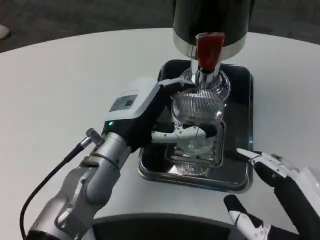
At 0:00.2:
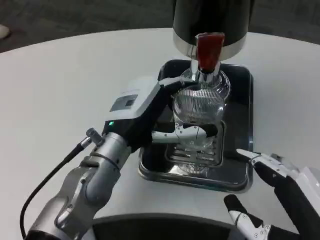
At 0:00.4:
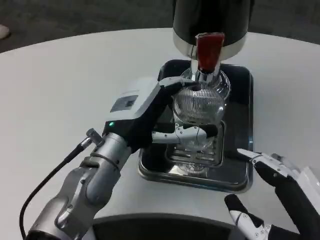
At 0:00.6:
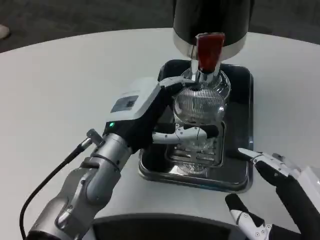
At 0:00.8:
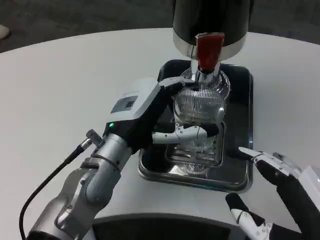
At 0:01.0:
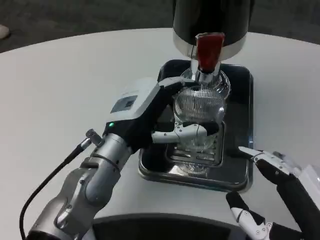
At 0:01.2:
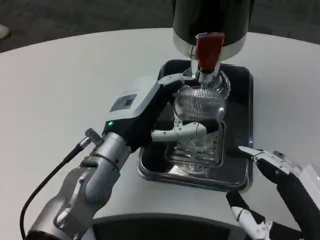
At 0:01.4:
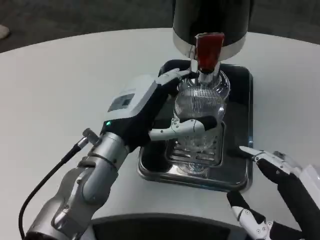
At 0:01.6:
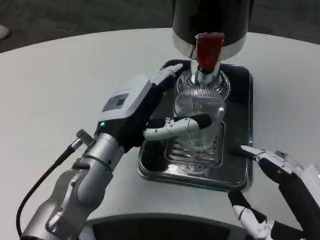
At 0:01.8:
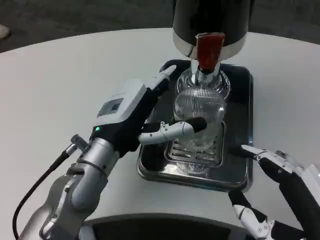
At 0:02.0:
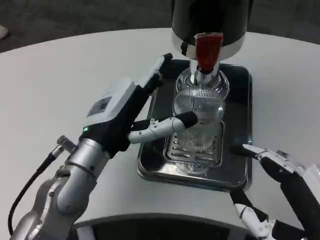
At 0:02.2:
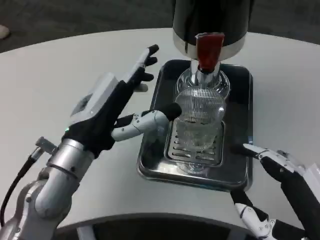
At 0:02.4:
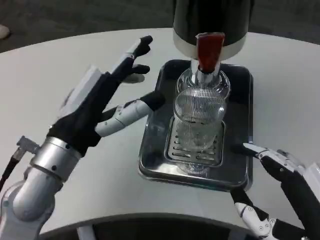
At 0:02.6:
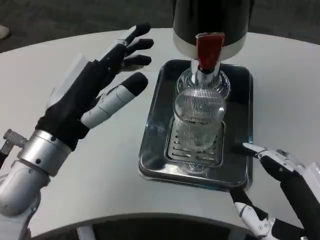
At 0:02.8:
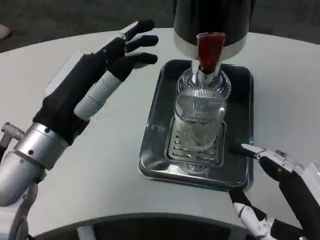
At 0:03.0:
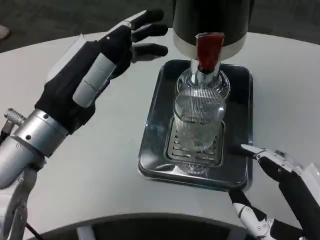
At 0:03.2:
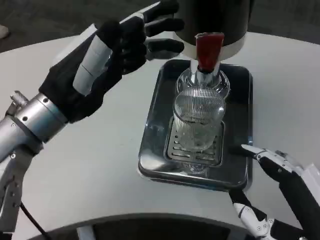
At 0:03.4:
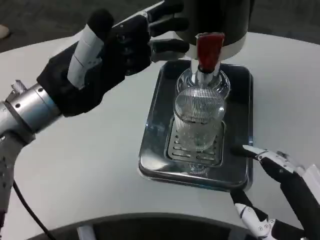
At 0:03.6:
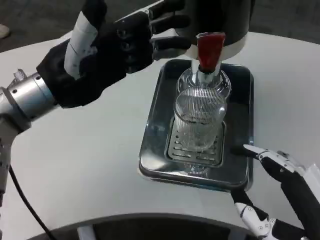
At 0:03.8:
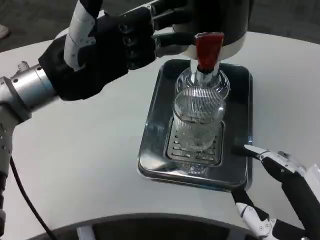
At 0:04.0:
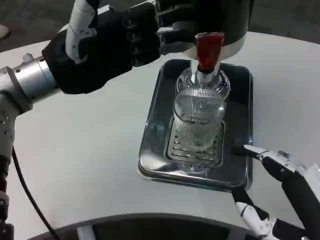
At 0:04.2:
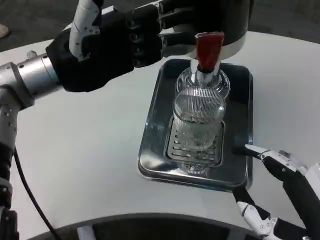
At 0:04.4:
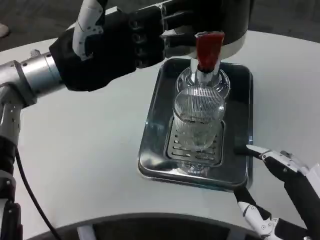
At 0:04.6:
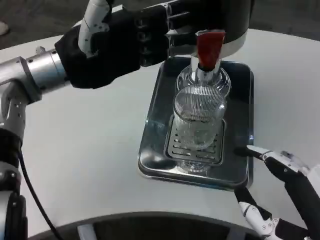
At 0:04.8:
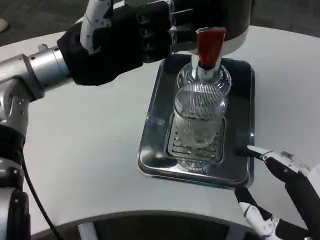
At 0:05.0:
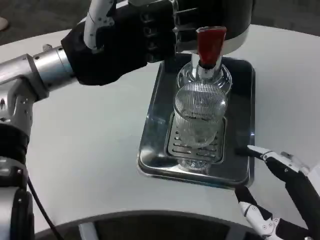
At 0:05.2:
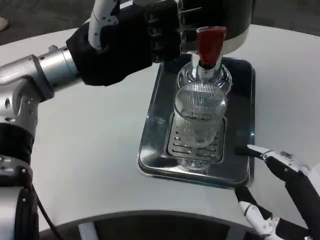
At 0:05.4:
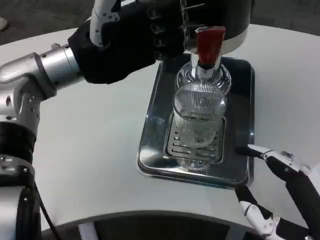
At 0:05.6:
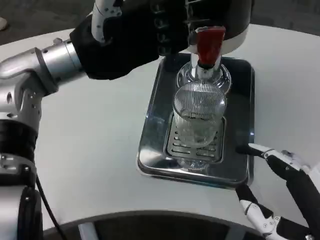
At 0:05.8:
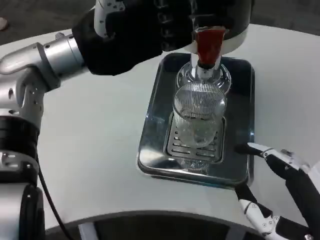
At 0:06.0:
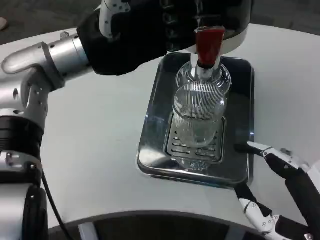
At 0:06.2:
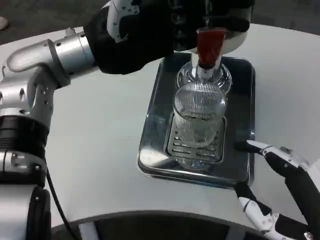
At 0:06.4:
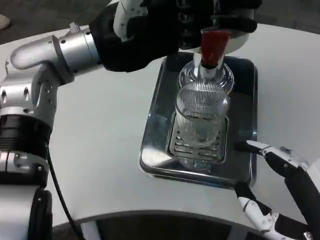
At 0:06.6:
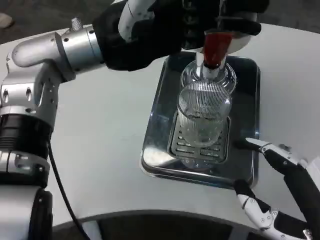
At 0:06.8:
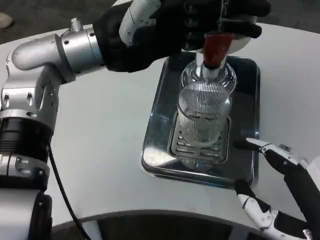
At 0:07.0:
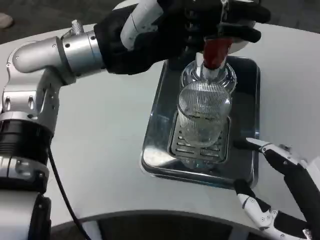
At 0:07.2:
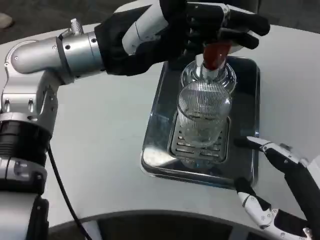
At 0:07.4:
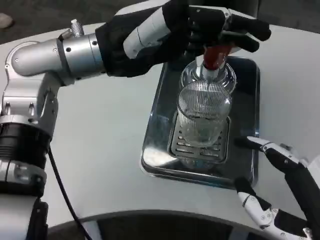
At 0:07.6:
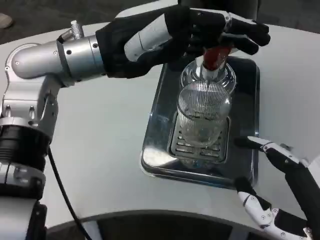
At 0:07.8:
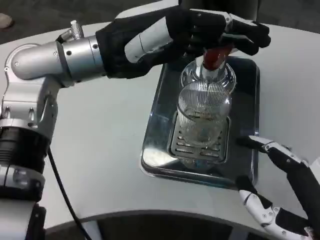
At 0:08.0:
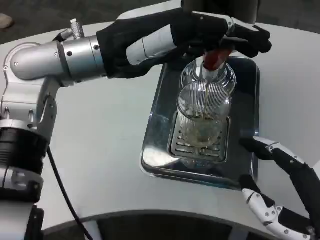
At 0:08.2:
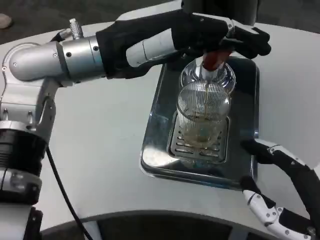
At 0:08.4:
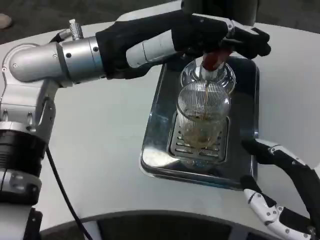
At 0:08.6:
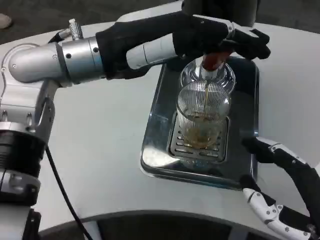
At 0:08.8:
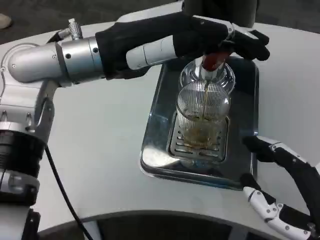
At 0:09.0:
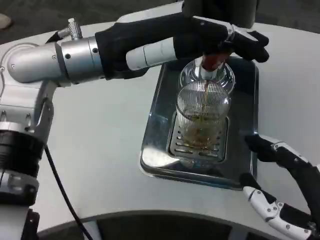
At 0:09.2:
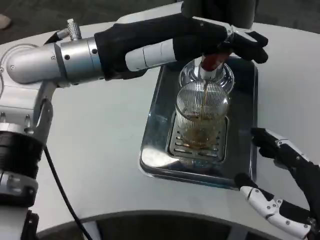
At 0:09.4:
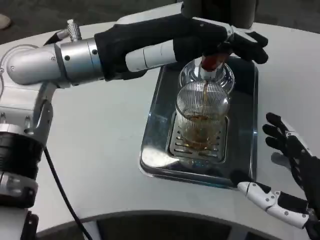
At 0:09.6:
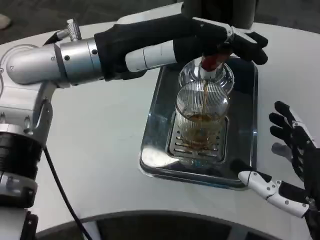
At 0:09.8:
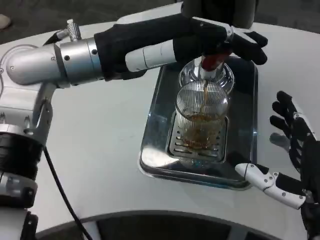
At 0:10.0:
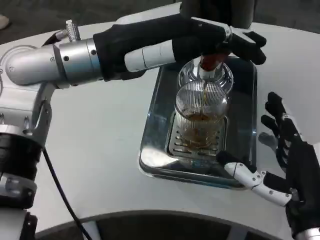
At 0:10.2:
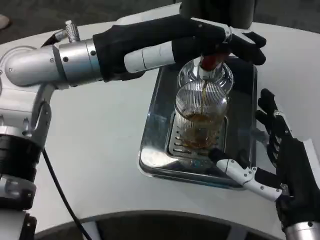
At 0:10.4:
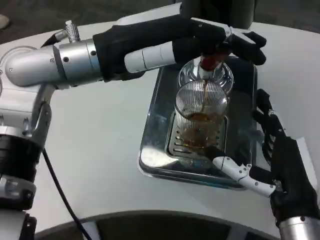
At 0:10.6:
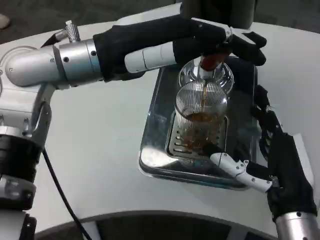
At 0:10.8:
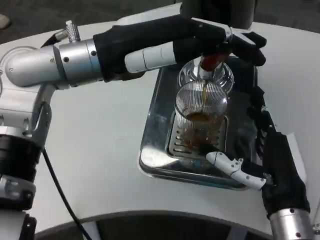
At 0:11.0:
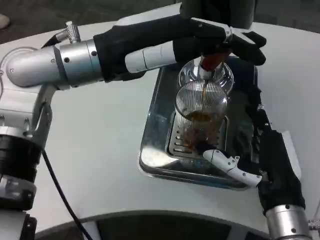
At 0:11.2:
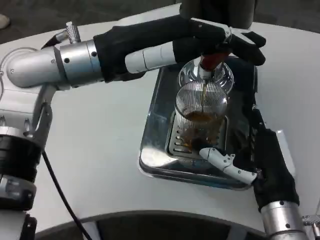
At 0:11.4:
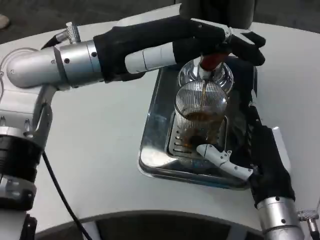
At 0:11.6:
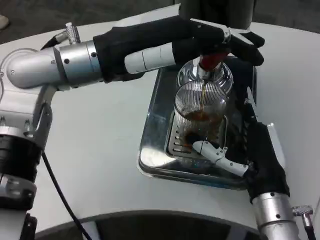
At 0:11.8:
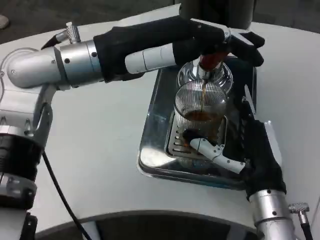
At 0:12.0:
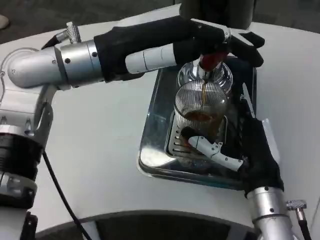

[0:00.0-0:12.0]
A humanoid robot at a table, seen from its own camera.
Task of the whole recording: Grasp the cup under the faucet to collect the drink, then remove the cup.
0:00.0 to 0:01.6: Both hands stay about where they are.
0:01.6 to 0:03.0: The left hand moves to the left and upward, roughly 10 cm.
0:03.0 to 0:04.4: The left hand is displaced forward and upward by roughly 10 cm.
0:09.0 to 0:10.4: The right hand heads forward, covering roughly 10 cm.
0:10.4 to 0:12.0: The right hand travels forward by some 5 cm.

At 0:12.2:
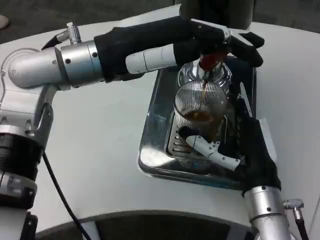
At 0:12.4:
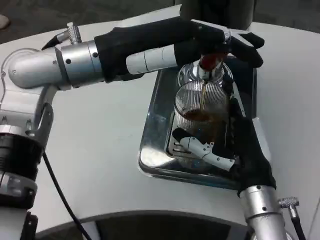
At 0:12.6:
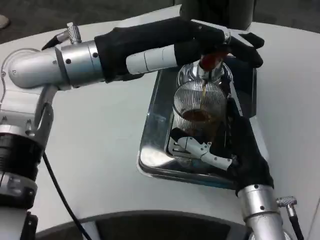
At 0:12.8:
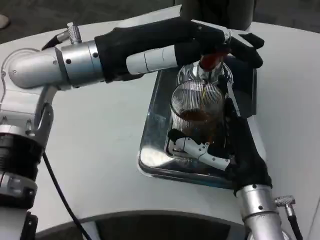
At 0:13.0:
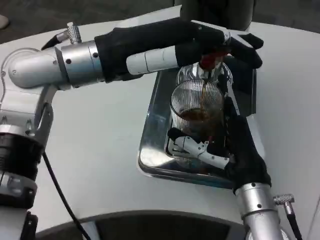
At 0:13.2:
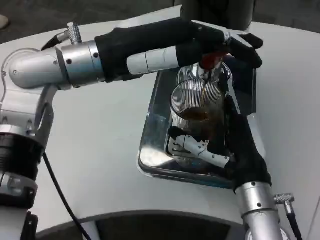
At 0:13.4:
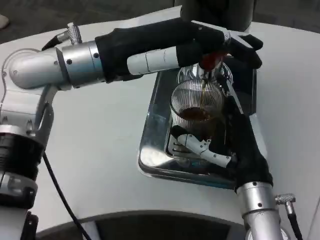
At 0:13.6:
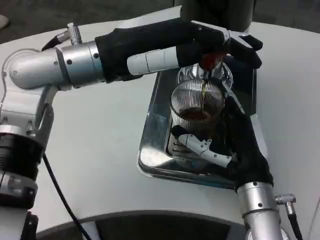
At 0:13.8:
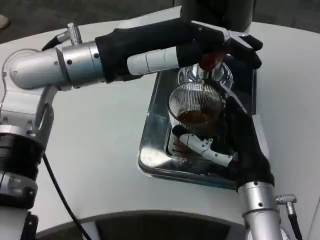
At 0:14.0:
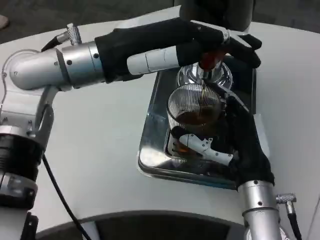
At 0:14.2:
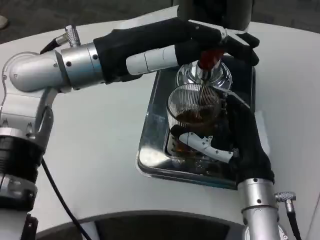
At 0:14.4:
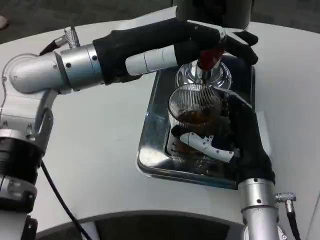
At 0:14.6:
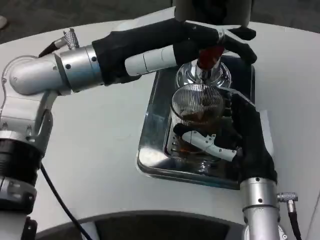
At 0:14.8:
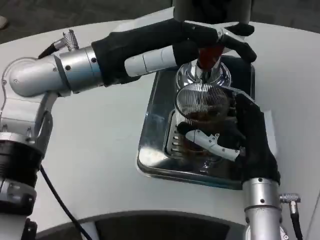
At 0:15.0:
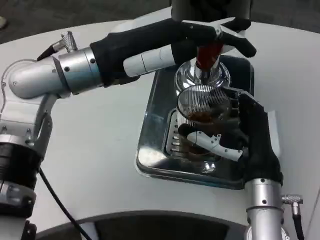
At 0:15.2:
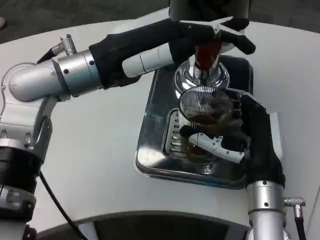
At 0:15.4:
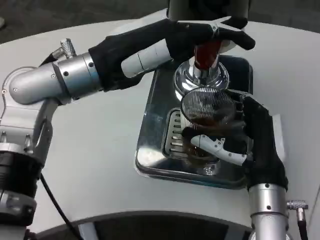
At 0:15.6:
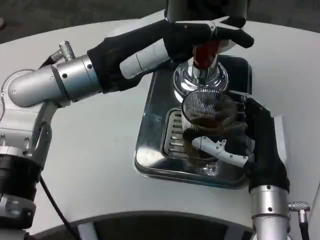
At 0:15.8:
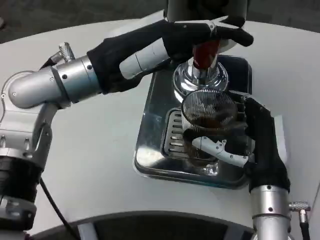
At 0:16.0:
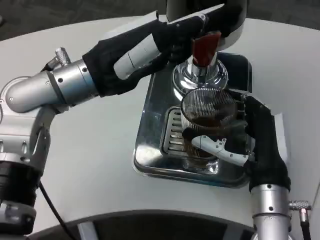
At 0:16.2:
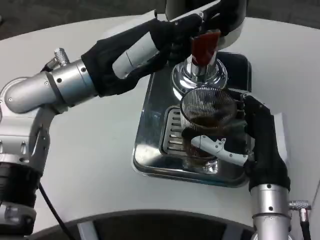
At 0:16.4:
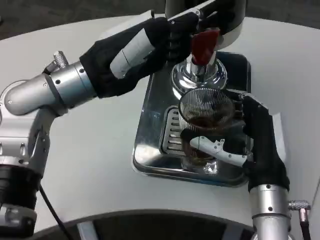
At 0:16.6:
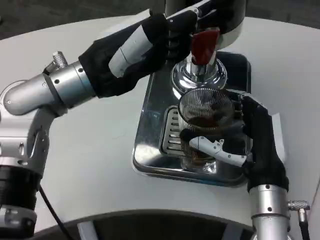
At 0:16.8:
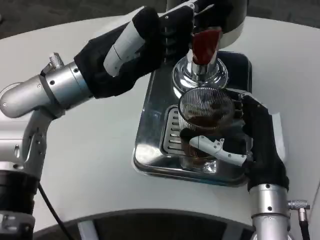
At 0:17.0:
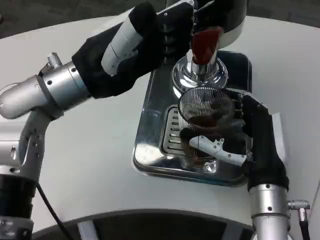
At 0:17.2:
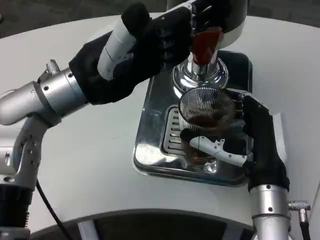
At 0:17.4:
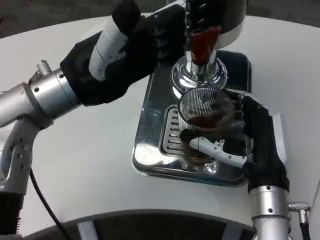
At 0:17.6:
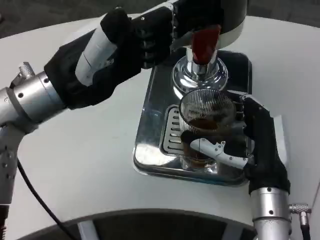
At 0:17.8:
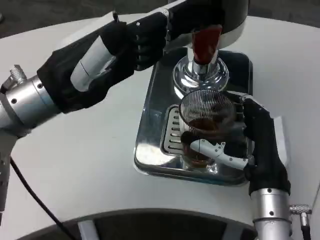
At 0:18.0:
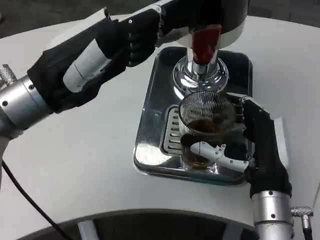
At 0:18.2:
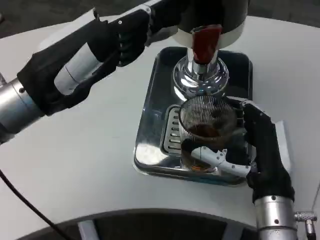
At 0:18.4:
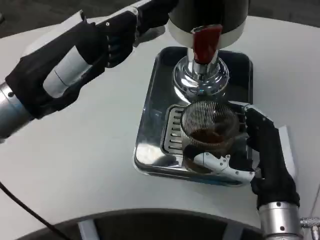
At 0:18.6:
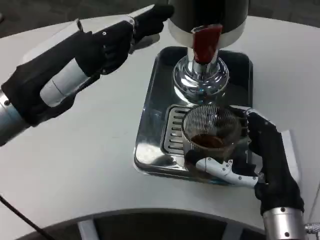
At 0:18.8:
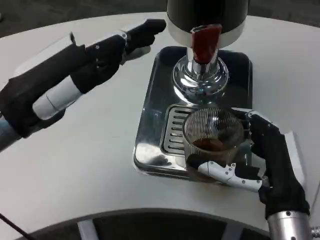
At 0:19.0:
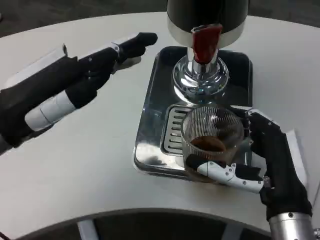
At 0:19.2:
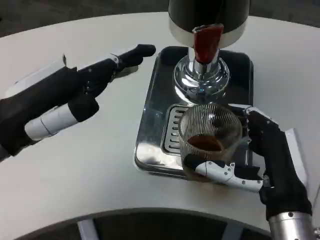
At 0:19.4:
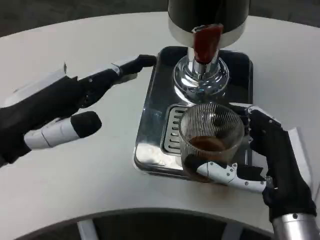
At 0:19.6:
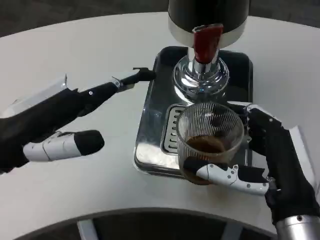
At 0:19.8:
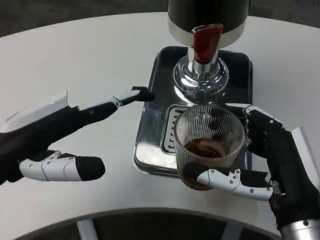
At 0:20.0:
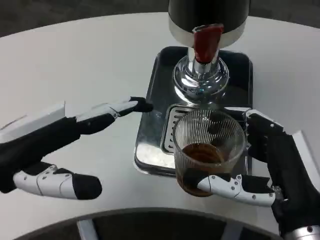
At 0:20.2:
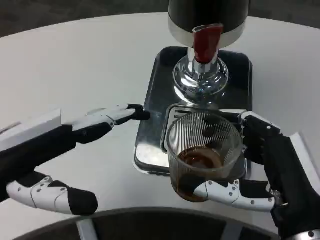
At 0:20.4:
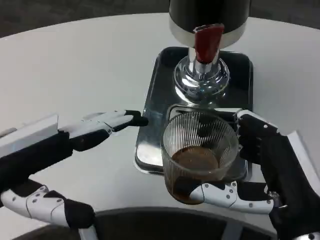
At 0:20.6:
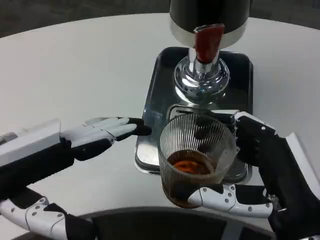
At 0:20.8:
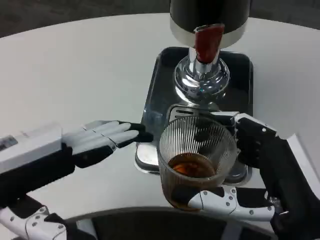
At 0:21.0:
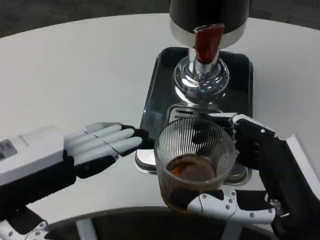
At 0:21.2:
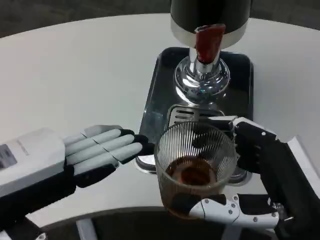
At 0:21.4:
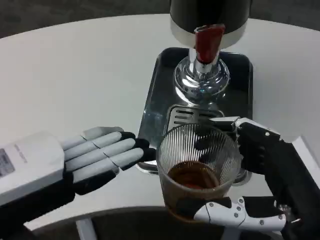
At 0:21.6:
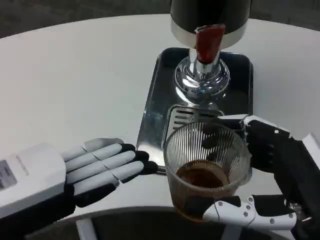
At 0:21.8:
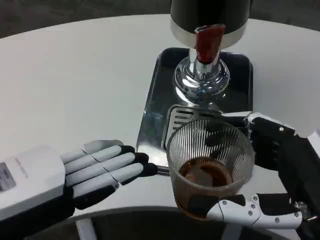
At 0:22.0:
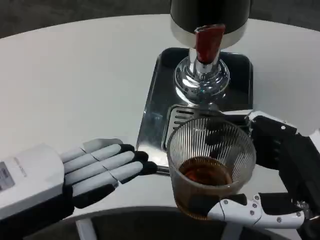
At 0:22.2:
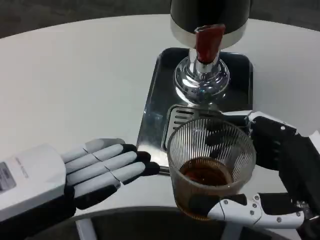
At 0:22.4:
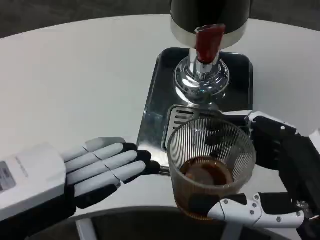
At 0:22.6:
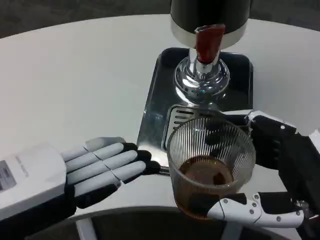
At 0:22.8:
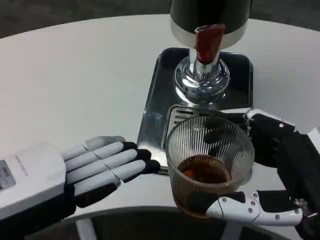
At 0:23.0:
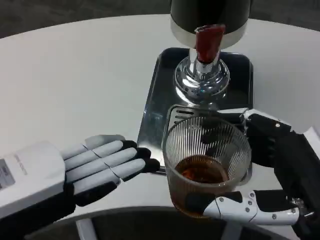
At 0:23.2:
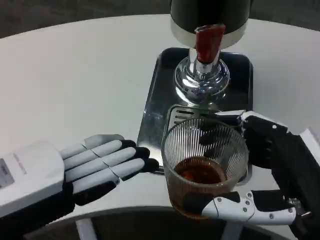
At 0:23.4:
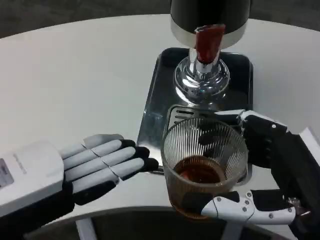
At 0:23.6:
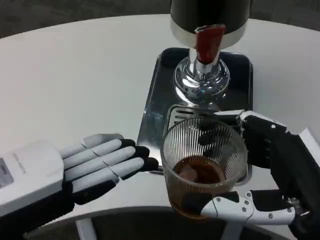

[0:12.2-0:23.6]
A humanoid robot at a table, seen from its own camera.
Task of the whole recording: Grasp the cup under the faucet to collect the drink, then remove the cup.
0:12.2 to 0:13.6: Both hands stay about where they are.
0:16.4 to 0:17.8: The left hand ends up some 5 cm from where it was.
0:17.8 to 0:19.4: The left hand moves backward and to the left, about 5 cm, while the right hand is displaced backward by roughly 5 cm.
0:19.4 to 0:20.8: The two hands go some 5 cm backward.
0:22.2 to 0:23.6: Both hands stay put.
